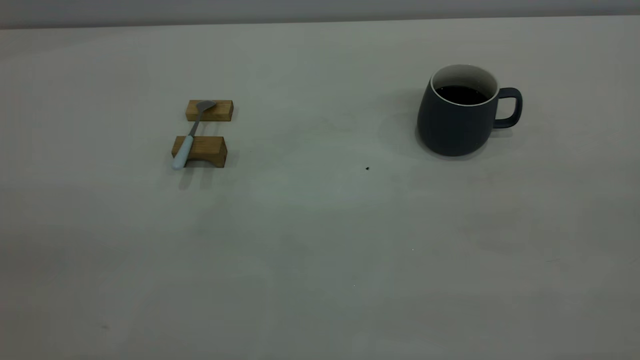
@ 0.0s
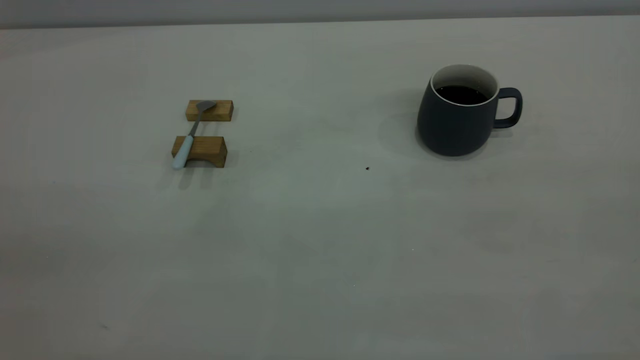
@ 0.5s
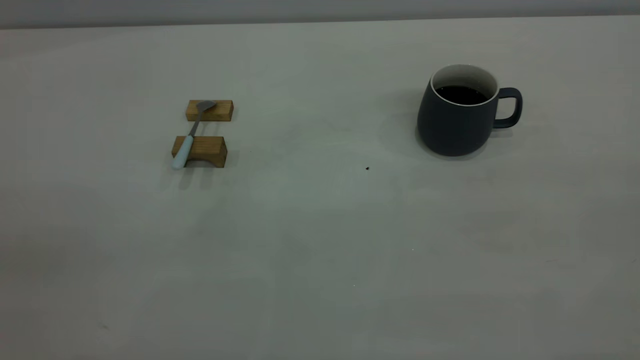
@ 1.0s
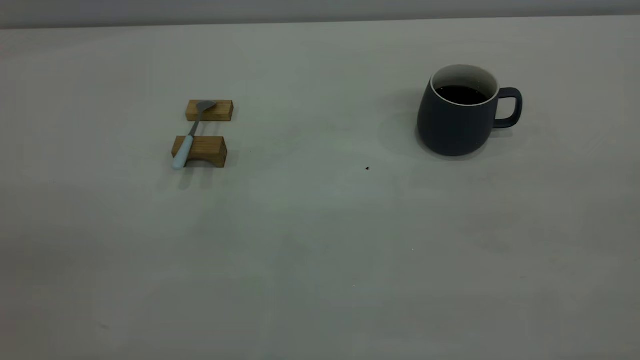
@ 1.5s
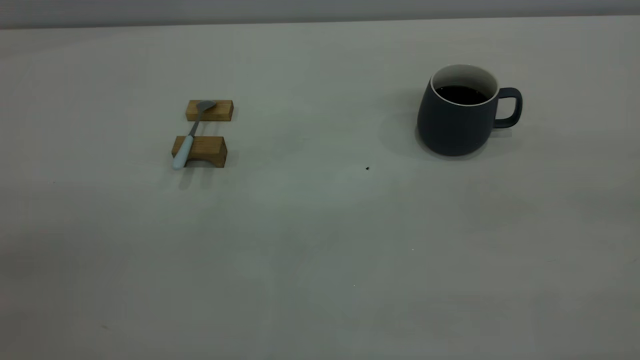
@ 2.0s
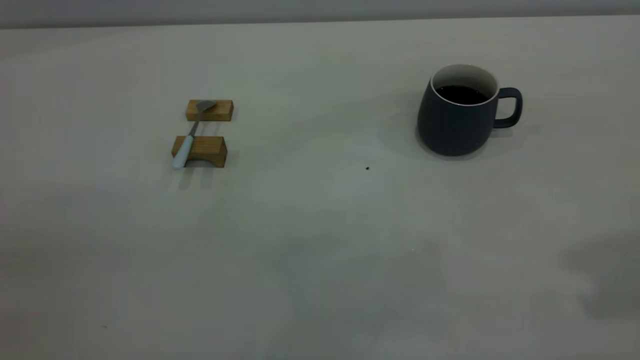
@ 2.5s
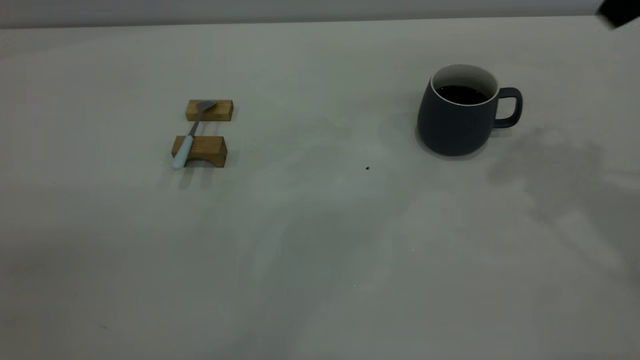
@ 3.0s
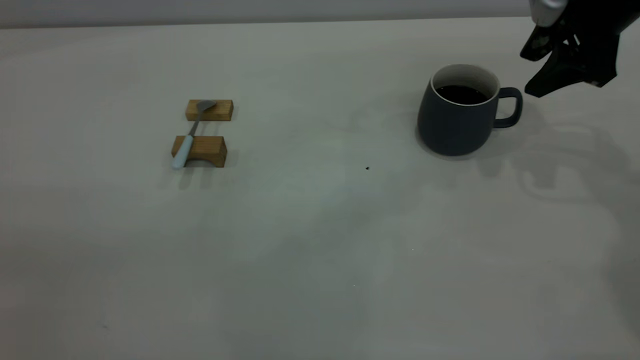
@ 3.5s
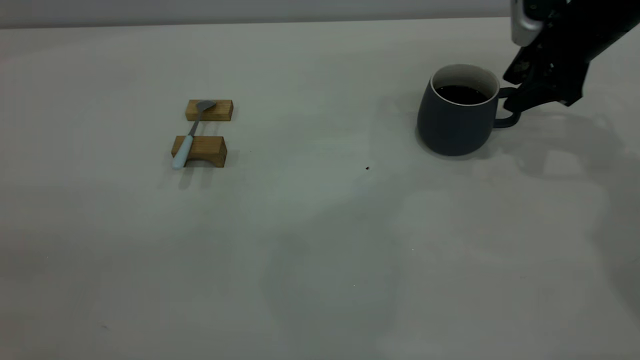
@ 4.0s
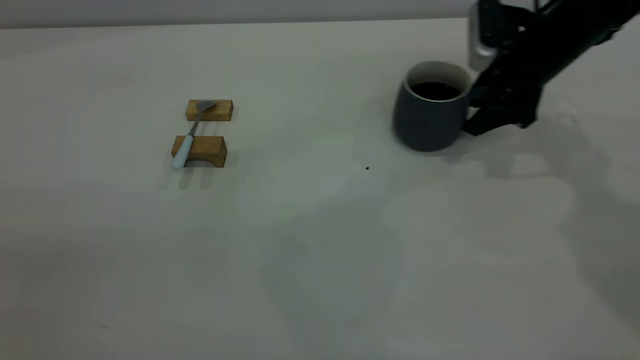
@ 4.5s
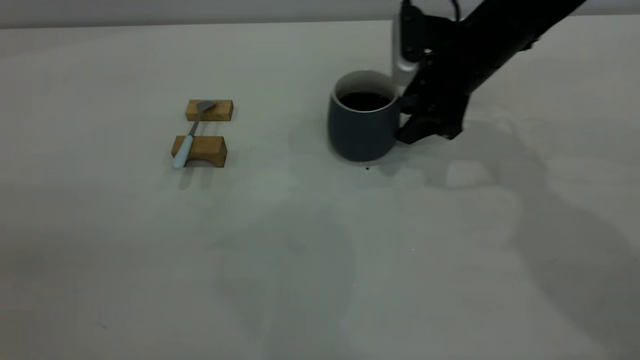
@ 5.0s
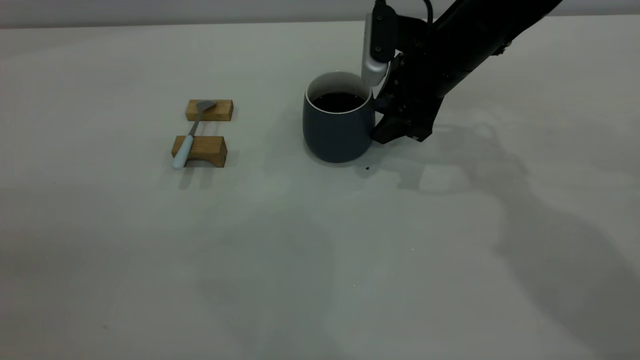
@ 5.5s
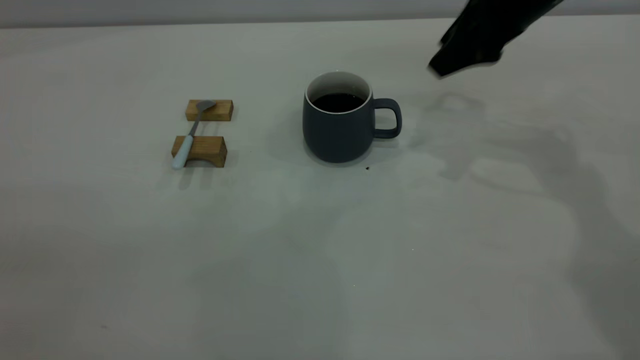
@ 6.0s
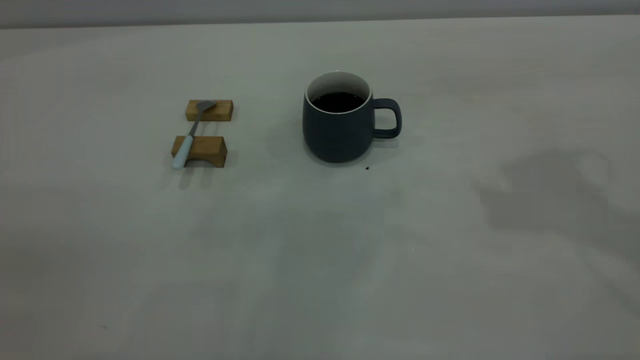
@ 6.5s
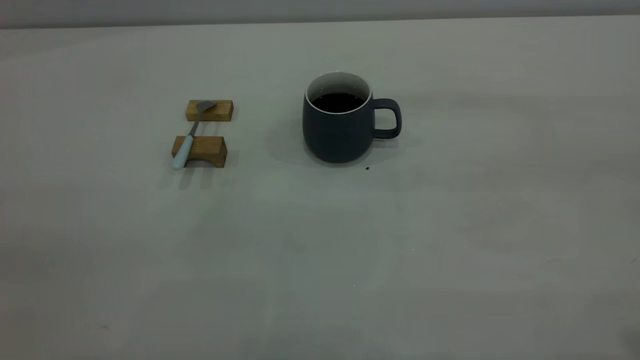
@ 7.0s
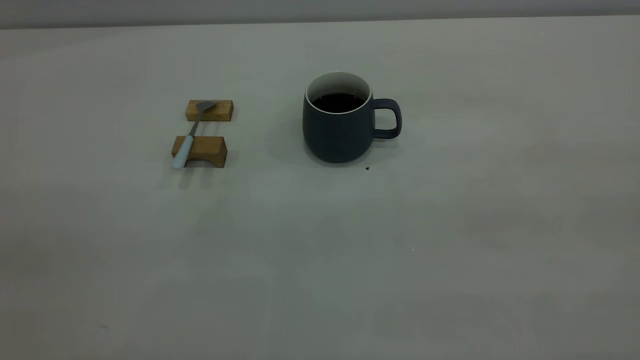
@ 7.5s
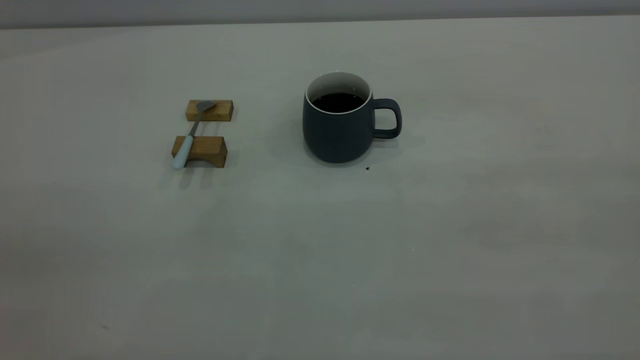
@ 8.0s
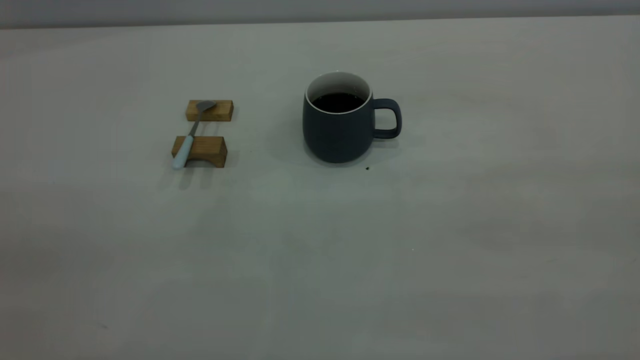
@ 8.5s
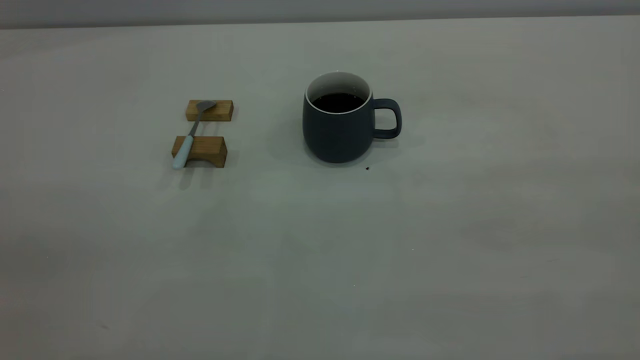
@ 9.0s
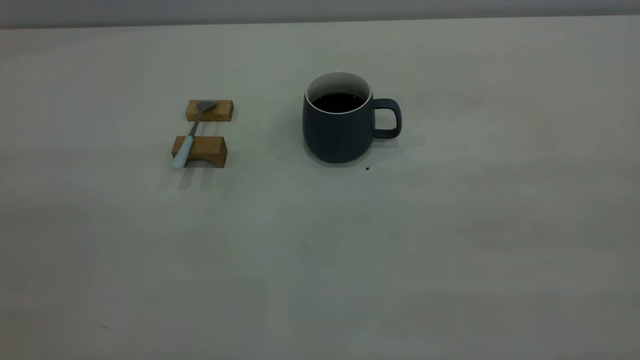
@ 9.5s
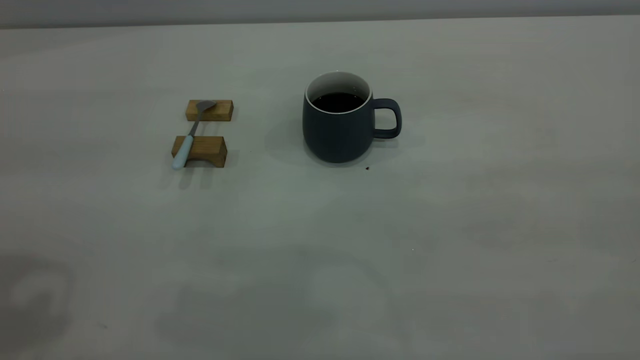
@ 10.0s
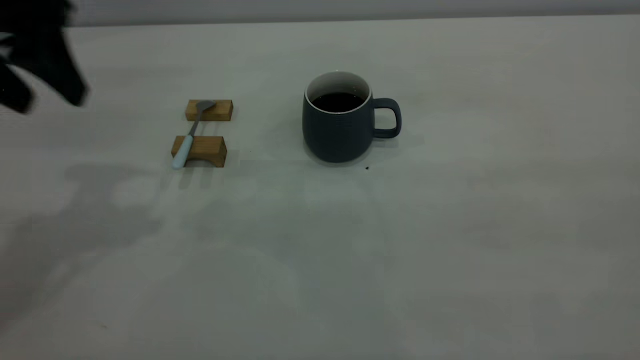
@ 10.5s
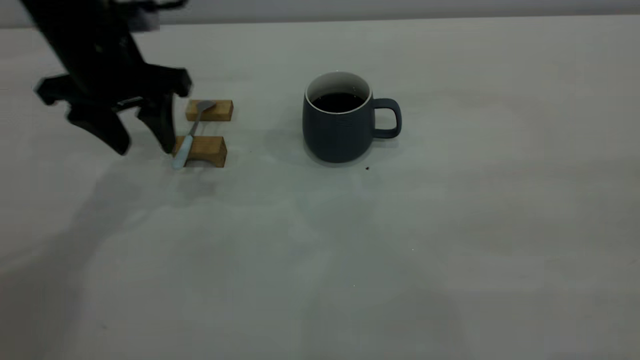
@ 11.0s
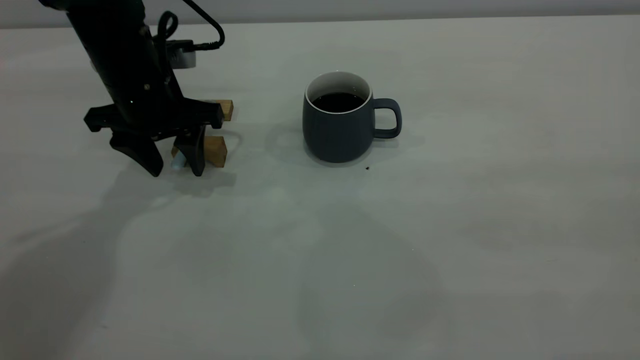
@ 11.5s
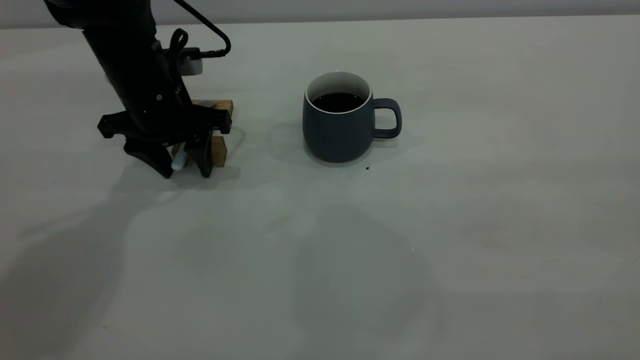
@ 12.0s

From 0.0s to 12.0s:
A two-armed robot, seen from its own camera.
Step, from 0.0s to 5.5s: Move the cup with coffee to the center of view.
From 2.0s to 4.0s: The right gripper travels forward and downward by about 50 cm, and opens.
From 4.0s to 6.0s: The right gripper goes roughly 10 cm to the left and upward.
From 6.0s to 8.0s: The right gripper moves backward, approximately 40 cm.
From 10.0s to 12.0s: The left gripper goes about 35 cm downward, forward and to the right.

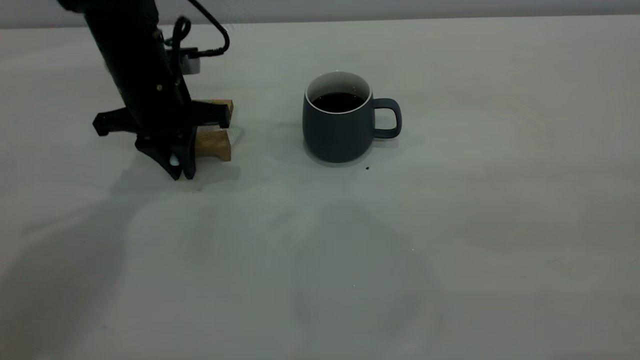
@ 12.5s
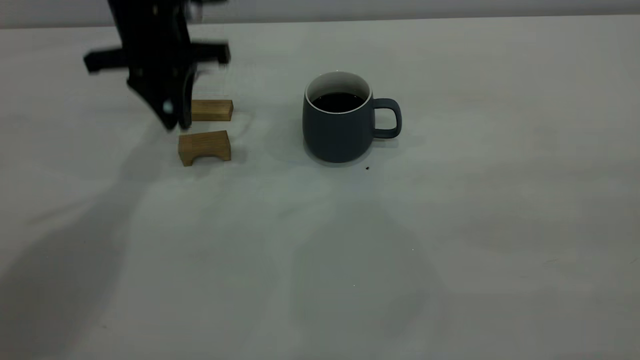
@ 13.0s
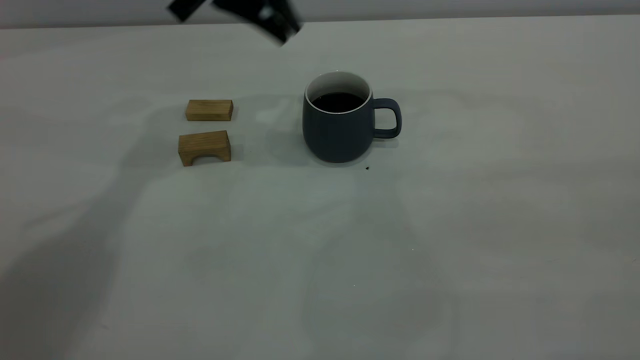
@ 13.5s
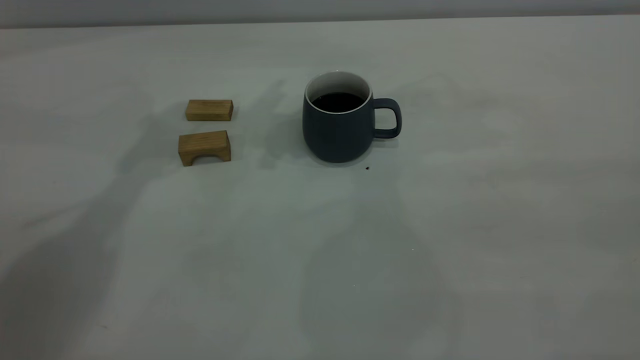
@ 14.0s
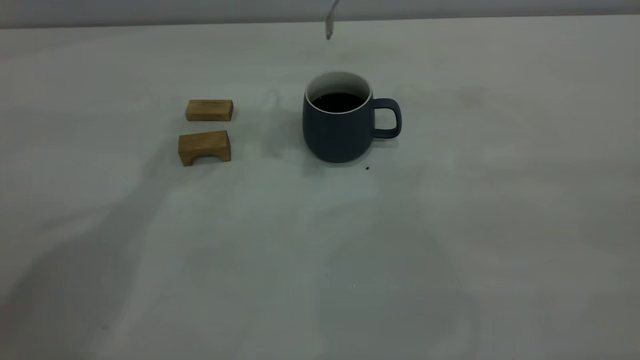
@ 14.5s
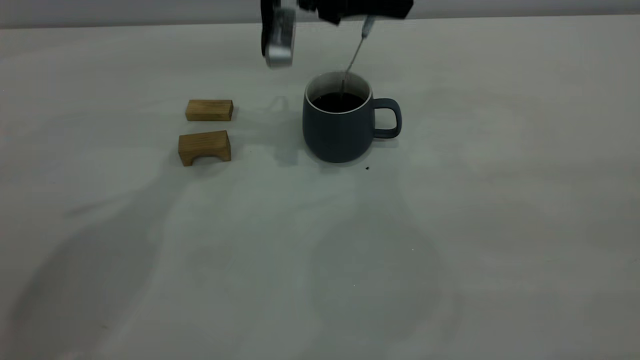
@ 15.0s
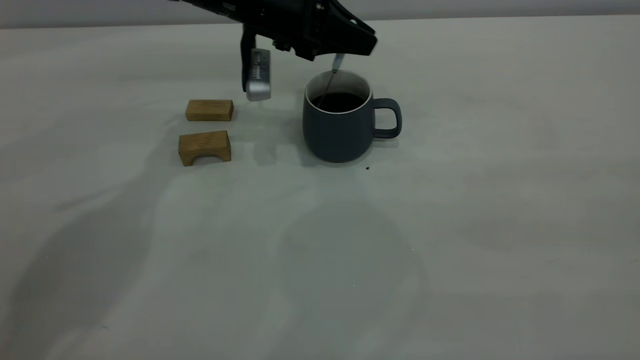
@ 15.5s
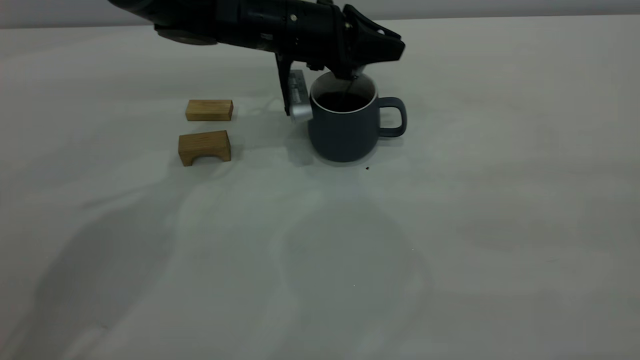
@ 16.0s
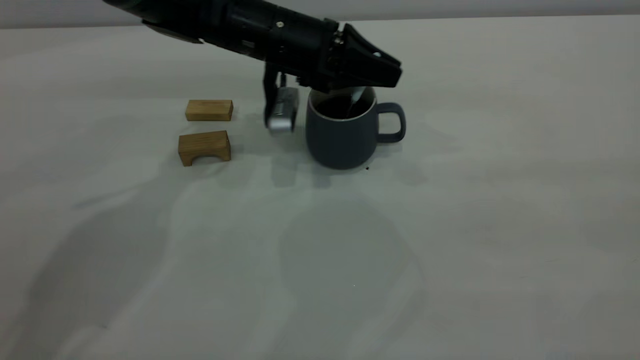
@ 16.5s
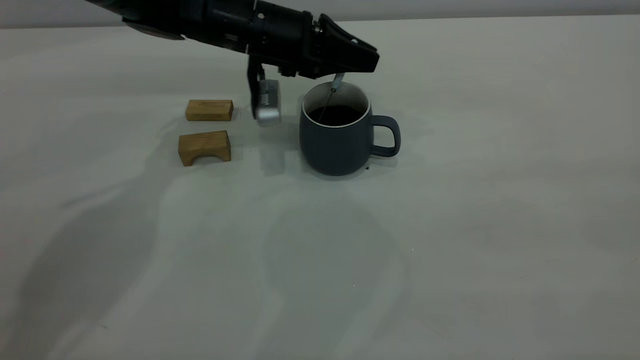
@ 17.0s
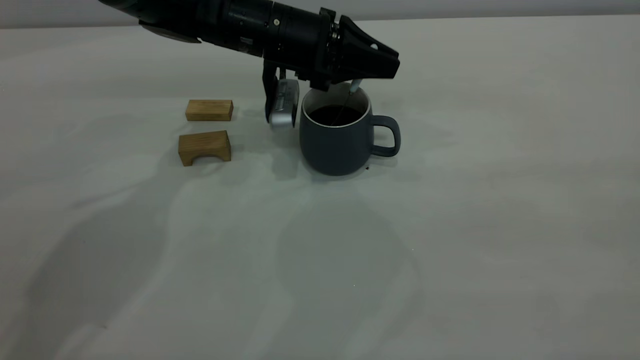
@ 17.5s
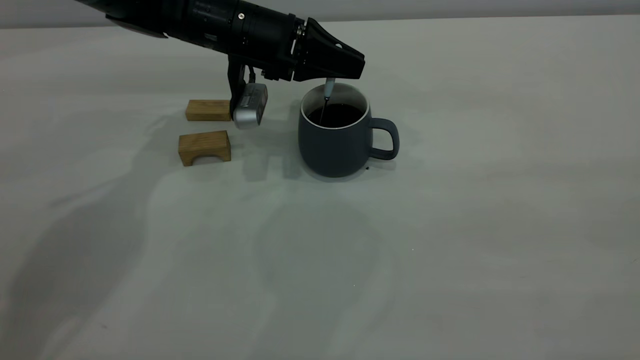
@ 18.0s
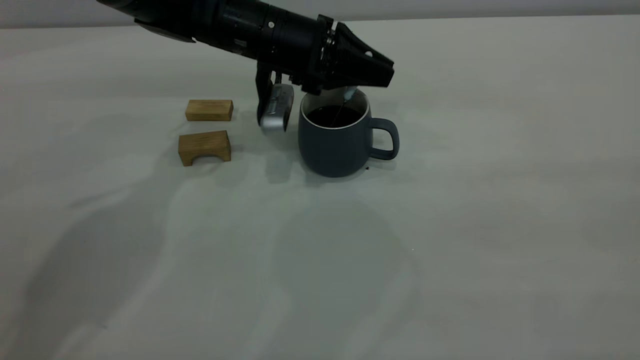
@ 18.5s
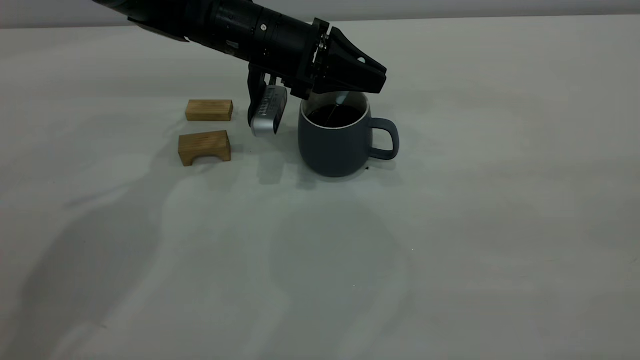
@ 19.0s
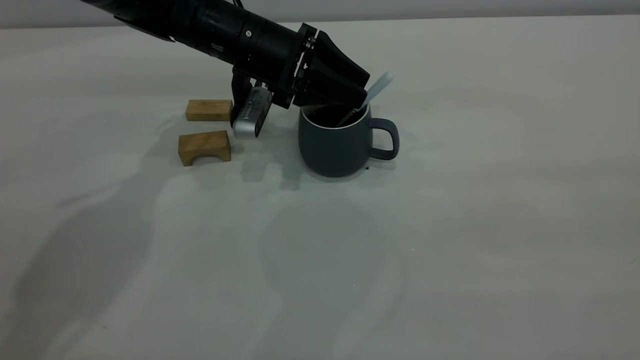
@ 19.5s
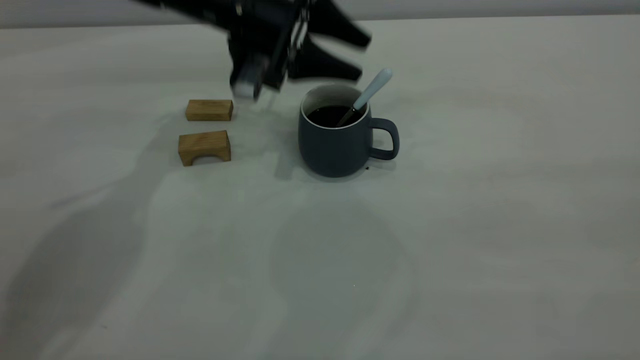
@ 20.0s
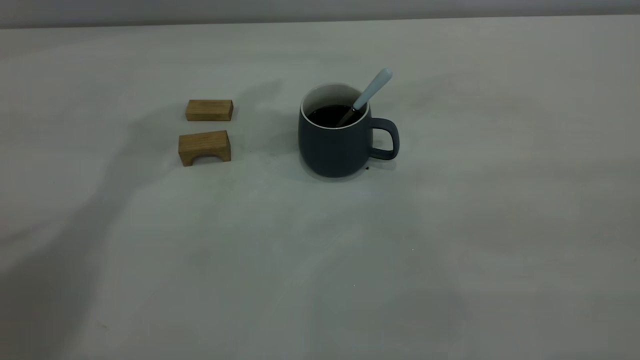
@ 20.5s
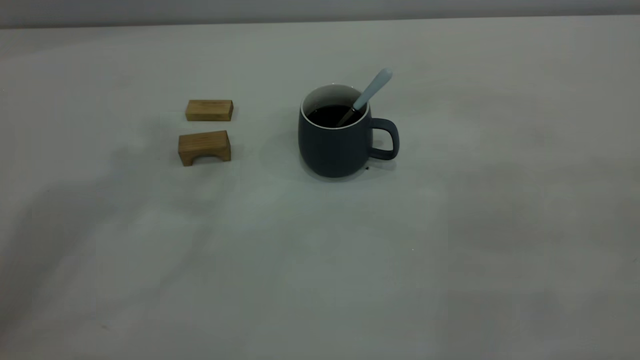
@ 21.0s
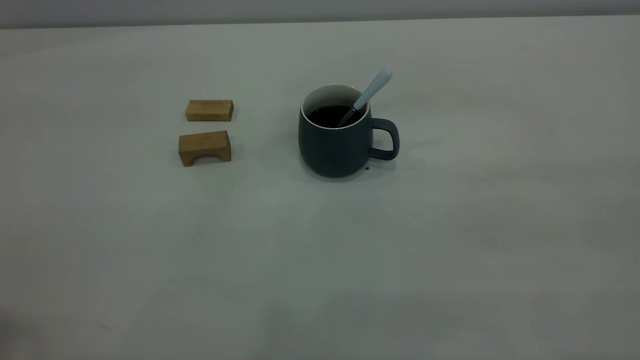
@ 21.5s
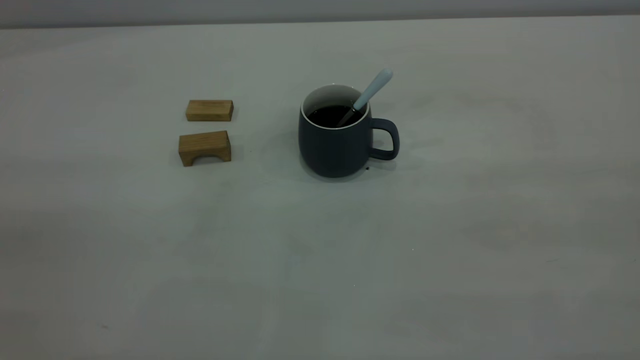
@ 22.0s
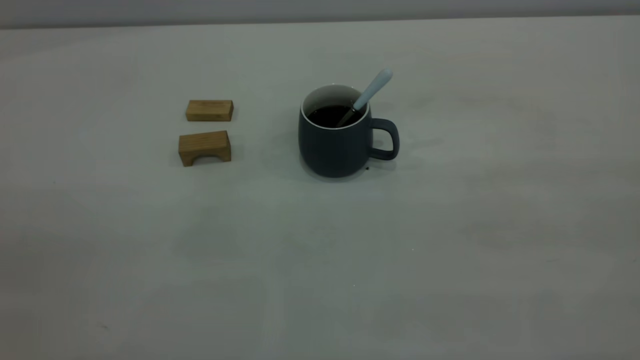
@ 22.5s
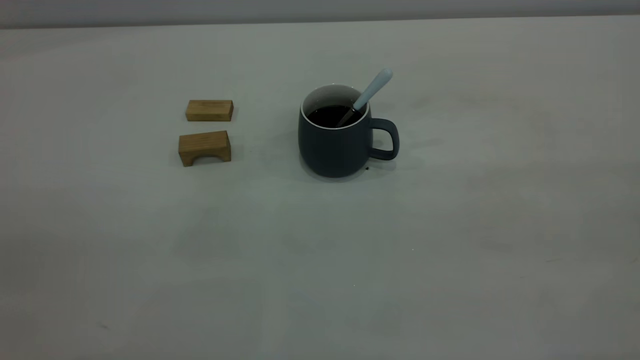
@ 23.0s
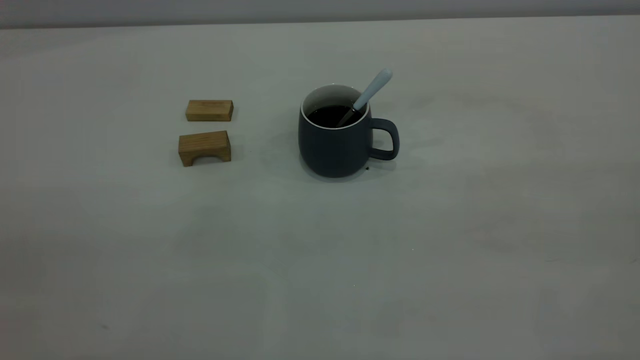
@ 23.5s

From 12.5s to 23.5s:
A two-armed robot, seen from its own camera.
Step, from 13.0s to 20.0s: Stir the coffee in the cup.
From 12.5s to 14.5s: The left gripper goes about 20 cm upward and to the right.
From 14.5s to 16.0s: The left gripper goes approximately 15 cm downward.
From 16.0s to 18.0s: The grippers move only a little.
From 18.0s to 20.0s: The left gripper opens.
From 20.0s to 21.5s: The left gripper moves backward, upward and to the left, approximately 50 cm.
